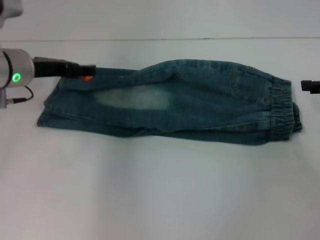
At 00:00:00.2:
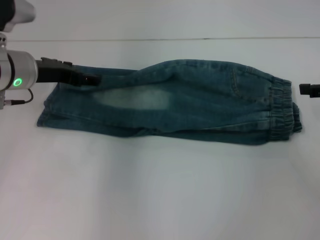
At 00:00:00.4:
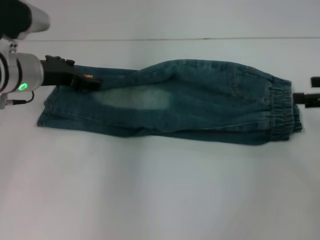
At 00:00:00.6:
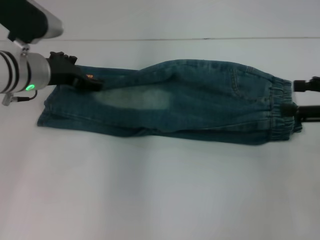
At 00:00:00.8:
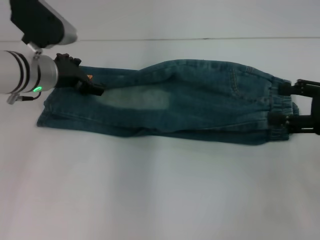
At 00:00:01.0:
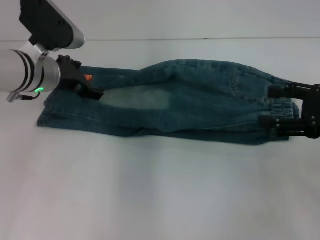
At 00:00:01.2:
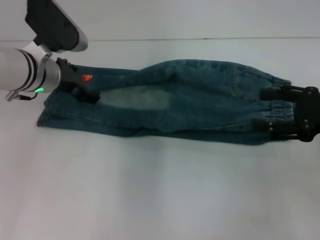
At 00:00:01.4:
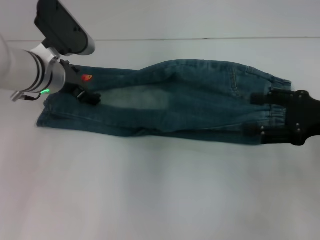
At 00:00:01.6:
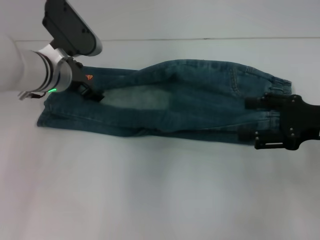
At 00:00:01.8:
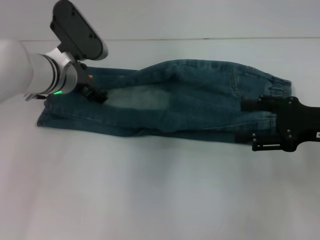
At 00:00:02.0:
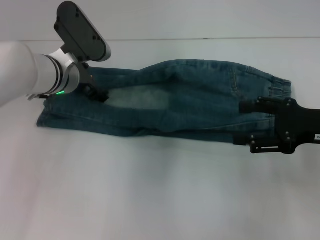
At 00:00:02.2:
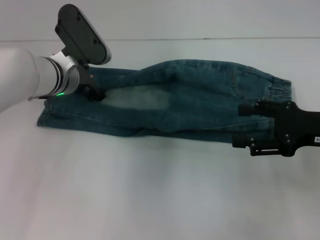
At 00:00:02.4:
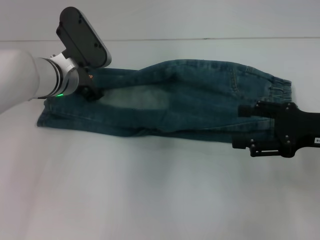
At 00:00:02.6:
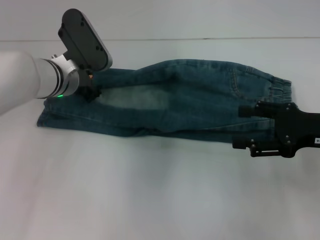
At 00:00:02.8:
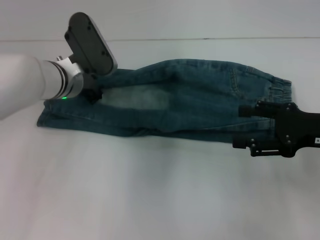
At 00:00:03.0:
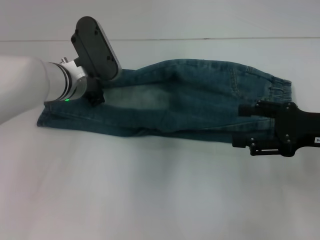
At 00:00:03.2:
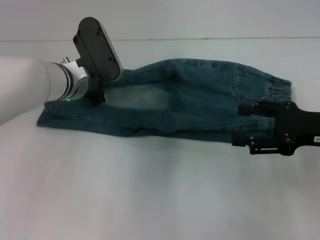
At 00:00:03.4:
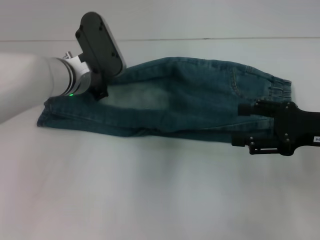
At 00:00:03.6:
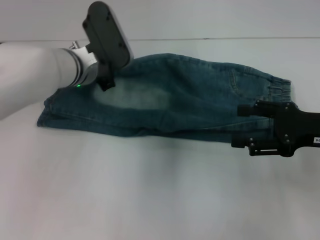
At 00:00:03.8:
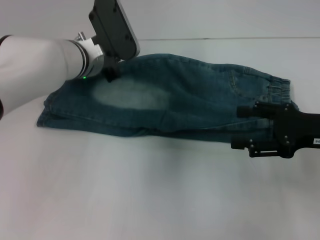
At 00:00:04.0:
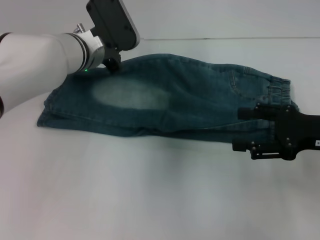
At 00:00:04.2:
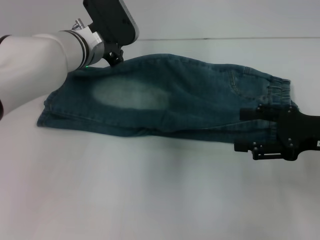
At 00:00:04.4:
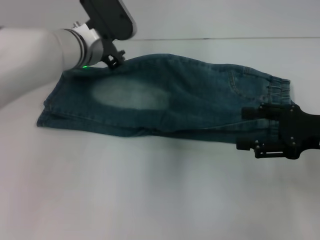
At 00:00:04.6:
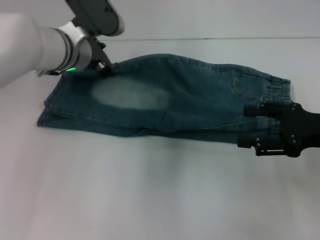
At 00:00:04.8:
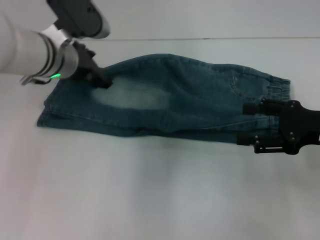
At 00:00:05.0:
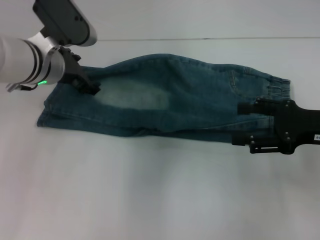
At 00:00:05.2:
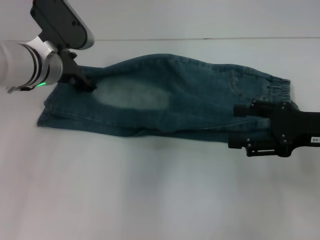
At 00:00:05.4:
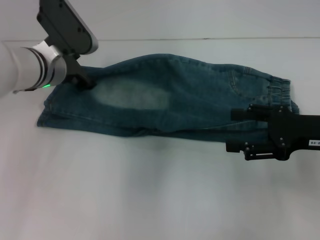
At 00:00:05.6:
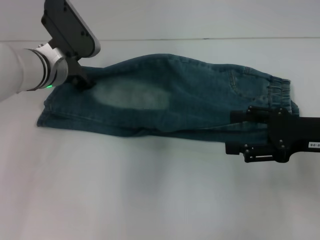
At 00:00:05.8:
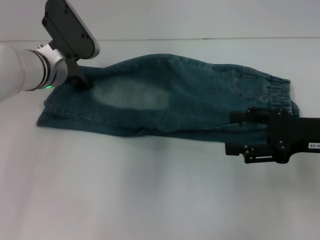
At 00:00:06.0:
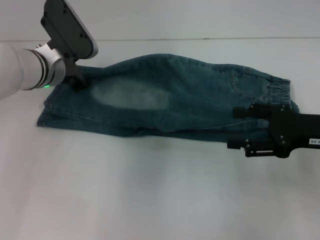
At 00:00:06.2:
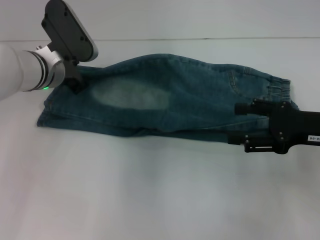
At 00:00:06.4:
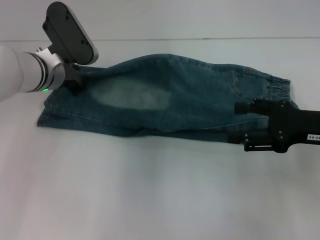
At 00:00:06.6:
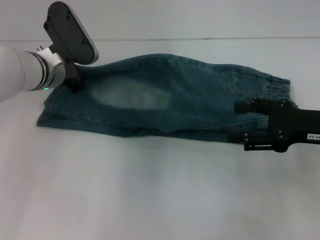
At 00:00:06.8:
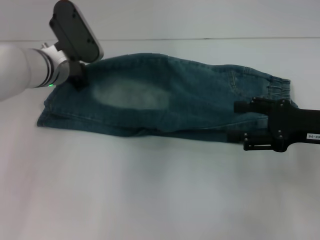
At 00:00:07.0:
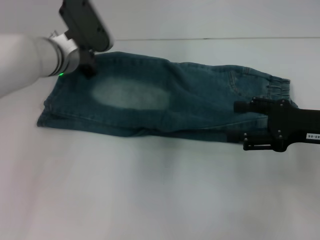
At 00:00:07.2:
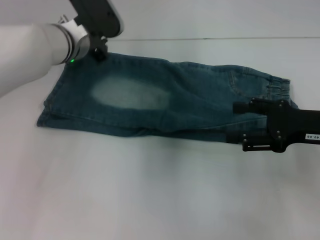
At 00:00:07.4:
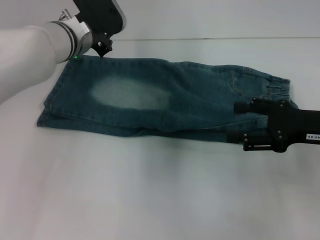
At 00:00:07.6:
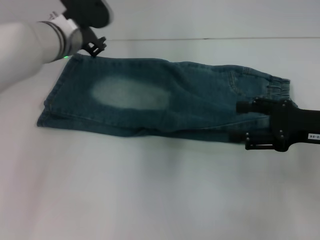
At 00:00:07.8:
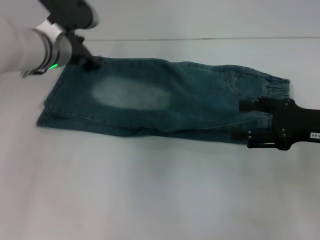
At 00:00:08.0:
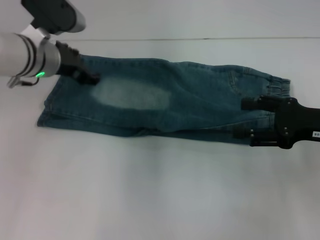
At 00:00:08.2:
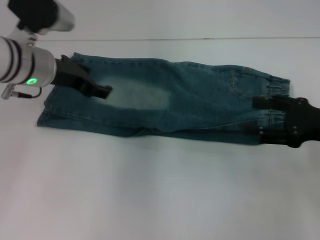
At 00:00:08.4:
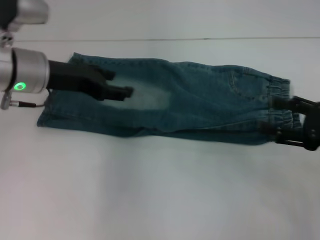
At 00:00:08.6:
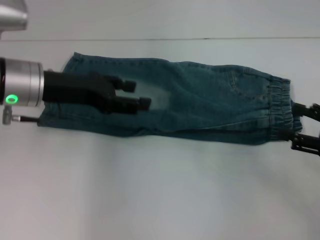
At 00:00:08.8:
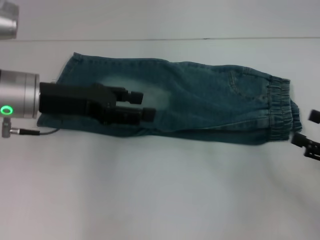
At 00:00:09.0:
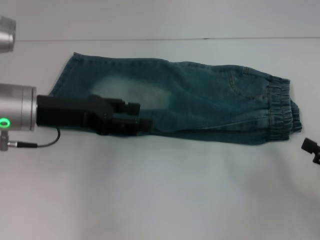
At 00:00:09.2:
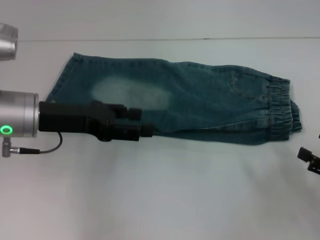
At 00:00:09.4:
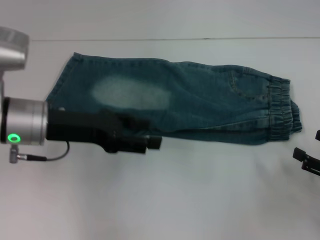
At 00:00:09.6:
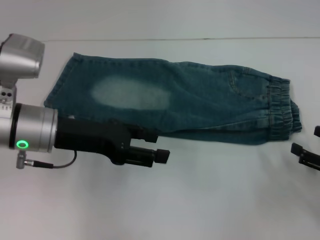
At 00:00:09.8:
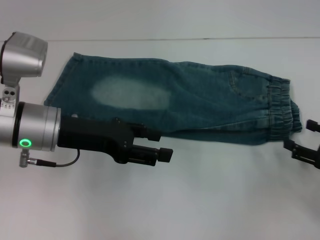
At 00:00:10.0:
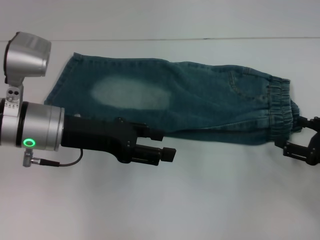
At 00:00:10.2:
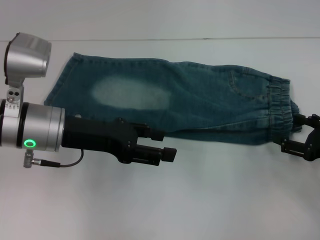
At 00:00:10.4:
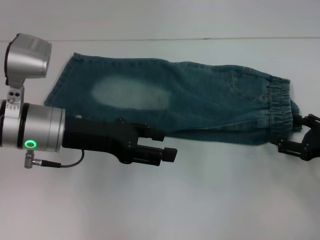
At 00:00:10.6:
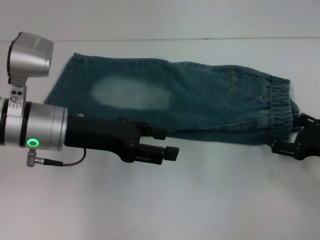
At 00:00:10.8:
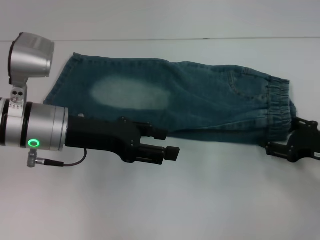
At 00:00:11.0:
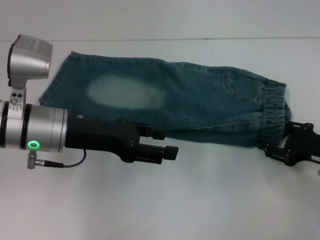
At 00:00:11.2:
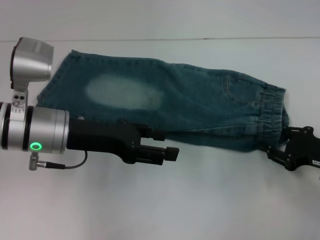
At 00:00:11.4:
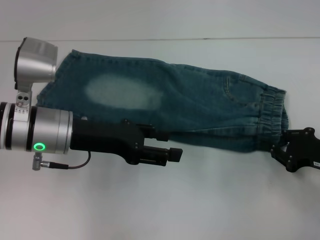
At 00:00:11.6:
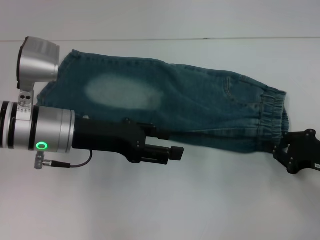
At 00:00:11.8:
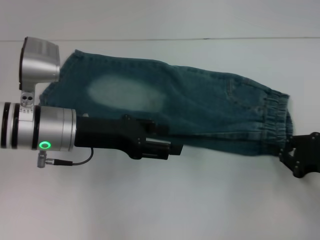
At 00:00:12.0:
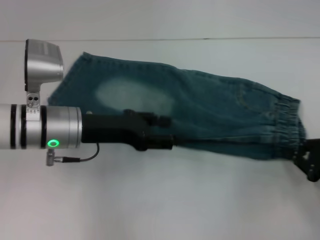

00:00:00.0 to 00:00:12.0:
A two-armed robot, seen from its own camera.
Step, 00:00:00.0 to 00:00:11.2: Grab the waistband with your right hand.
00:00:00.0 to 00:00:01.6: The right gripper goes some 10 cm to the left and backward, while the left gripper moves to the right, roughly 5 cm.
00:00:01.6 to 00:00:03.0: The left gripper closes its fingers.
00:00:03.0 to 00:00:04.4: The left gripper changes place by roughly 5 cm.
00:00:04.4 to 00:00:06.0: The left gripper is displaced to the left by some 5 cm, and opens.
00:00:06.0 to 00:00:07.6: The left gripper closes up.
00:00:07.6 to 00:00:09.0: The left gripper is displaced backward and to the left by approximately 15 cm, and opens up; the right gripper travels backward, to the right and downward by approximately 15 cm.
00:00:09.0 to 00:00:10.4: The right gripper goes some 5 cm forward.
00:00:10.4 to 00:00:12.0: The right gripper closes.

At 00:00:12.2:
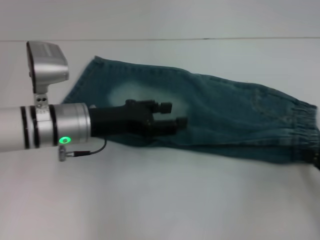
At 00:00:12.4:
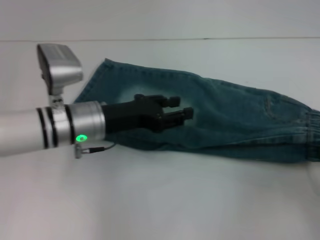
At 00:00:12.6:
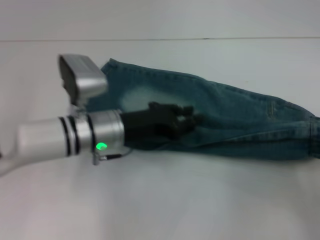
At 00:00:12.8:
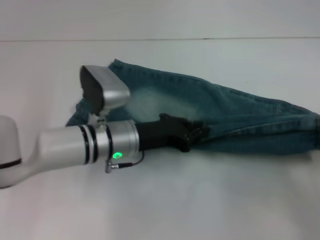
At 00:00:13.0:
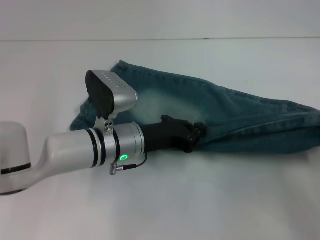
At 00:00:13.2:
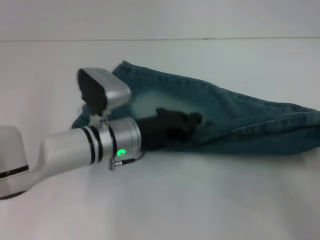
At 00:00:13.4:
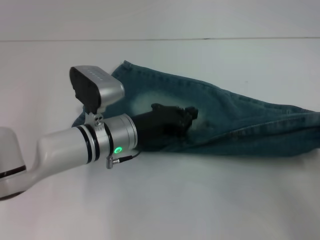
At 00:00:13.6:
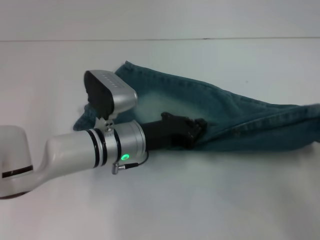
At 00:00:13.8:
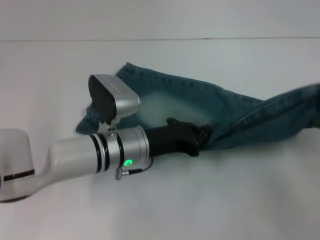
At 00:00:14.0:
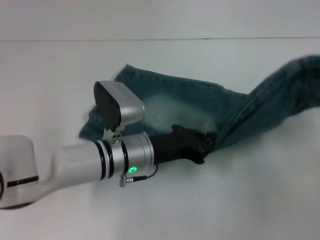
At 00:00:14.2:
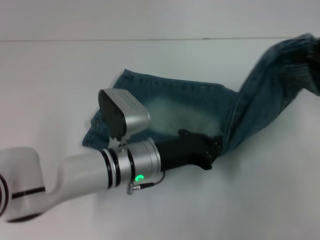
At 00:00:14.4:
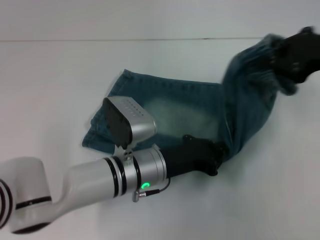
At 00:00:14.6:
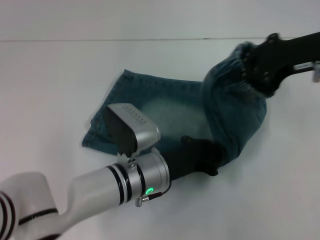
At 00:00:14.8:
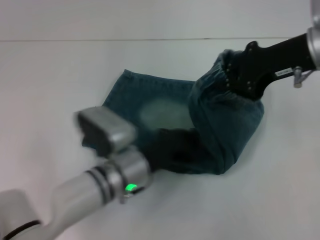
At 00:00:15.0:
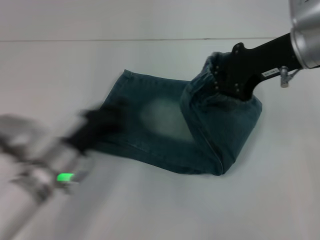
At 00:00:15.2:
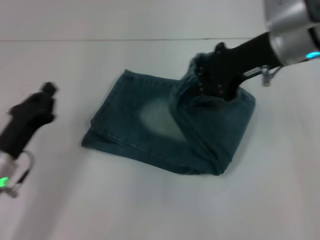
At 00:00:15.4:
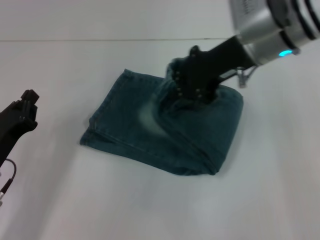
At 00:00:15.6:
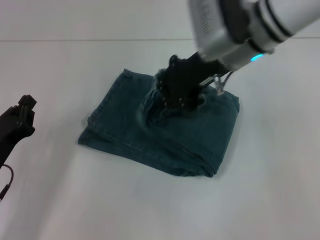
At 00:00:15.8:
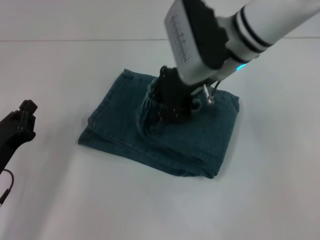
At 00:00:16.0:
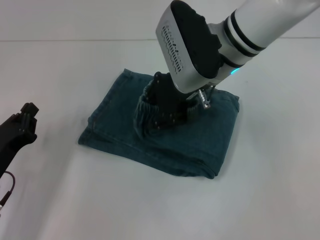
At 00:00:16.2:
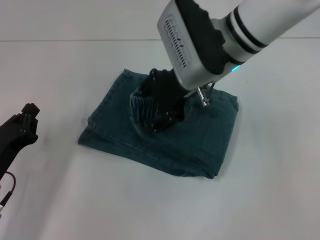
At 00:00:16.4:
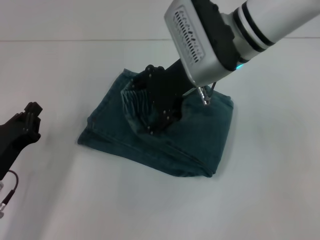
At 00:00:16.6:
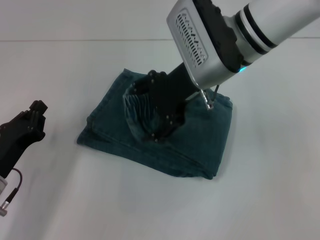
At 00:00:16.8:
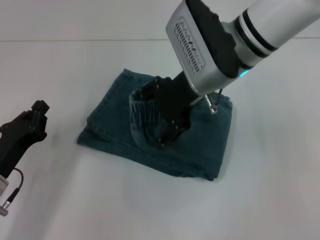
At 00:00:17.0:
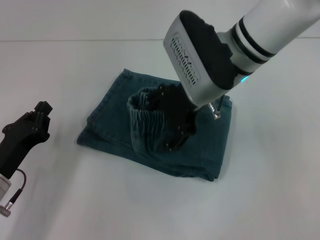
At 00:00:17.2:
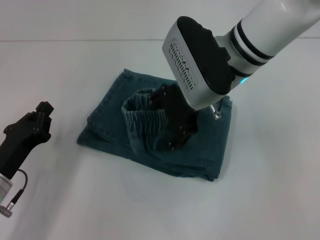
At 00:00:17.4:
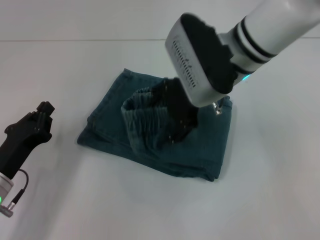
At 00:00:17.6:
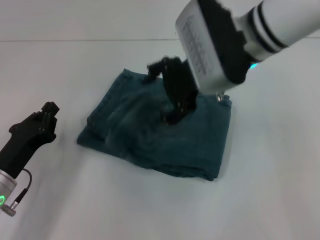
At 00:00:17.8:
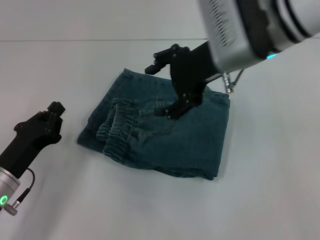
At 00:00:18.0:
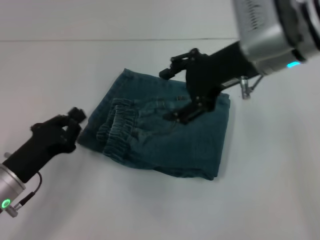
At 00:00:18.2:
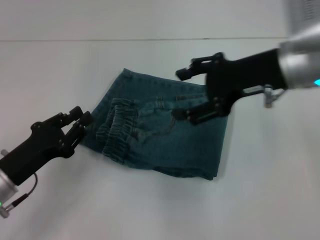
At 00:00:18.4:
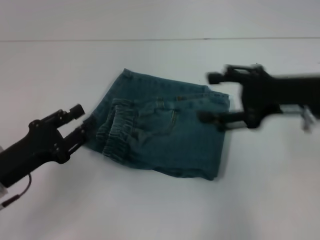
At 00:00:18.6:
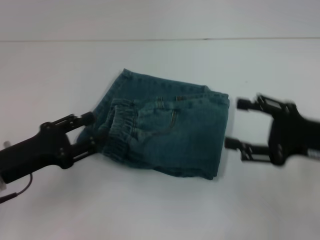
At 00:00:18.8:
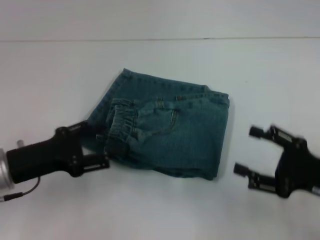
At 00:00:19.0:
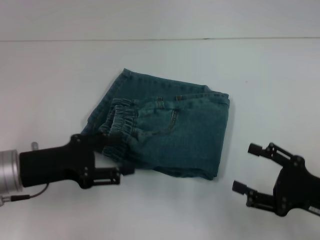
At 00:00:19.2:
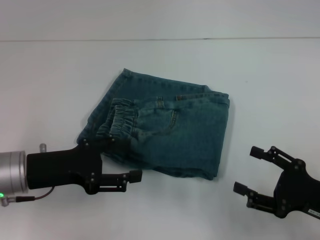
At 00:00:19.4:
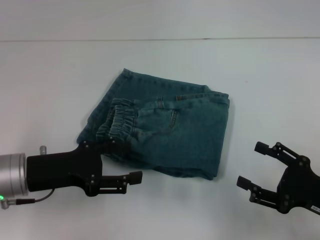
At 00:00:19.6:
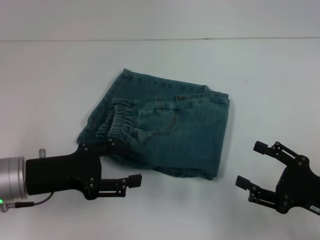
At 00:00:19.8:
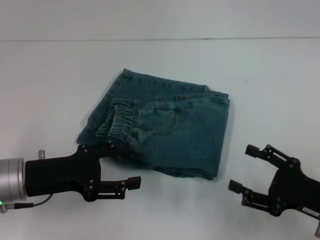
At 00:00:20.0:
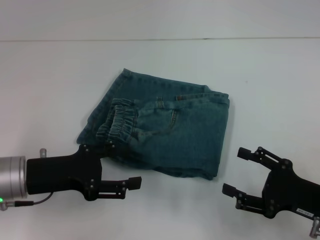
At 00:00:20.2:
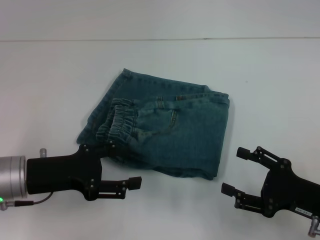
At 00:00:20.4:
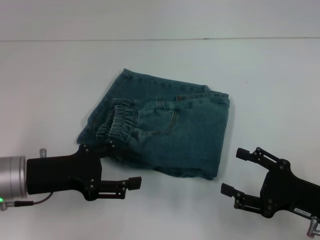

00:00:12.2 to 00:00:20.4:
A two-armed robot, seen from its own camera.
Step, 00:00:12.2 to 00:00:14.6: Press the middle of the pants with your left hand.
Step, 00:00:15.0 to 00:00:17.4: Fold to the left with your right hand.
00:00:12.2 to 00:00:13.8: The left gripper heads to the right and downward, covering some 10 cm, and closes. The right gripper moves upward, approximately 10 cm.
00:00:13.8 to 00:00:15.4: The right gripper moves to the left and forward, roughly 30 cm. Meanwhile the left gripper goes some 20 cm to the left.
00:00:15.4 to 00:00:17.2: The right gripper travels to the left by about 5 cm, and opens.
00:00:17.2 to 00:00:18.8: The left gripper moves upward, roughly 5 cm, and opens up; the right gripper heads to the right, backward and downward, covering roughly 30 cm.
00:00:18.8 to 00:00:20.4: The grippers move only a little.
